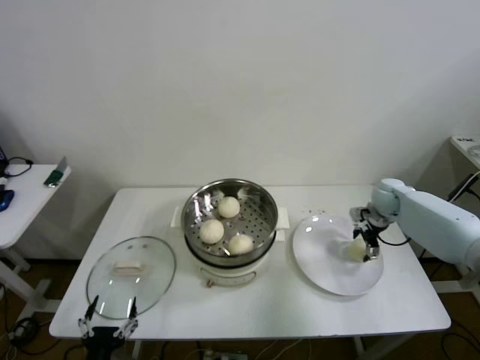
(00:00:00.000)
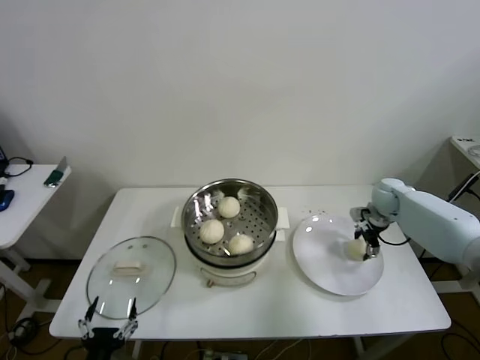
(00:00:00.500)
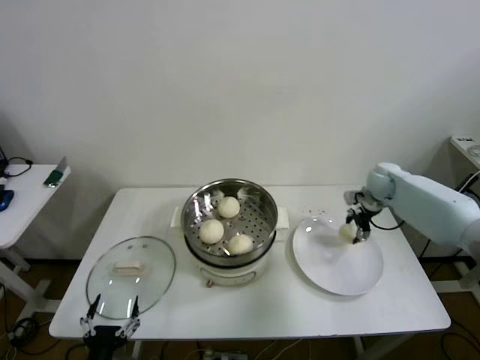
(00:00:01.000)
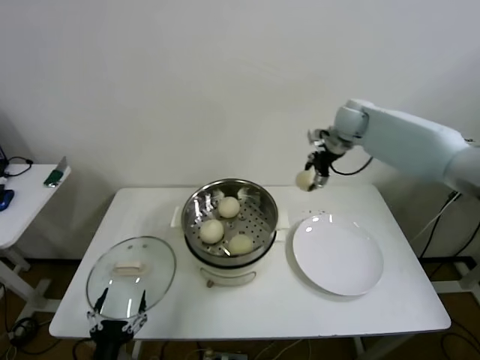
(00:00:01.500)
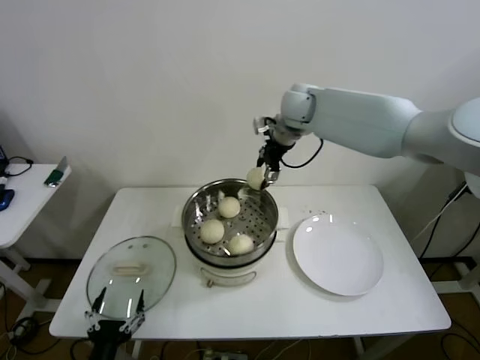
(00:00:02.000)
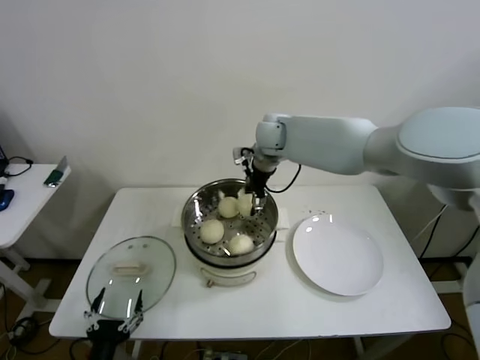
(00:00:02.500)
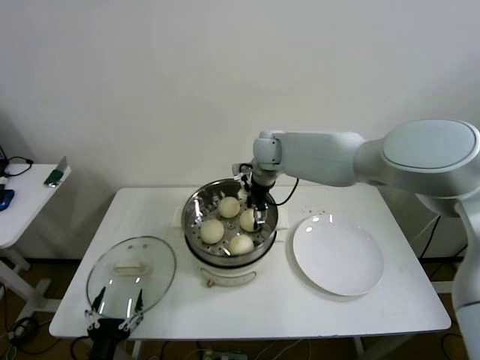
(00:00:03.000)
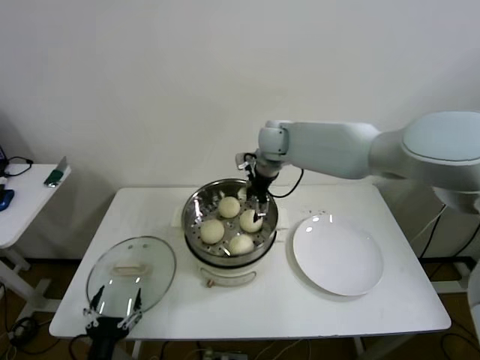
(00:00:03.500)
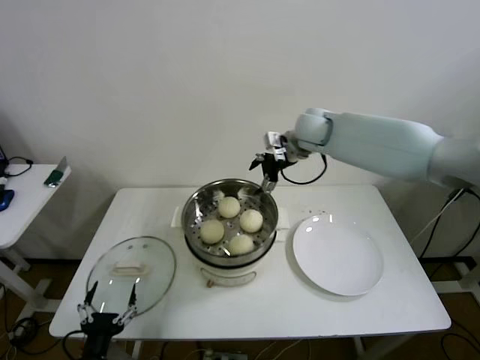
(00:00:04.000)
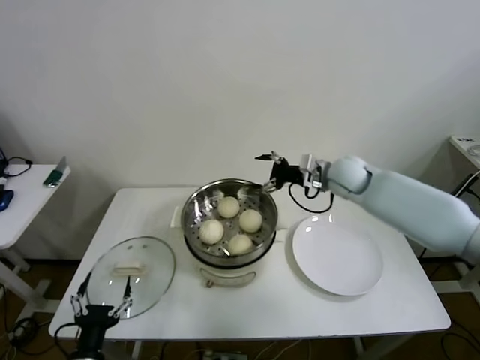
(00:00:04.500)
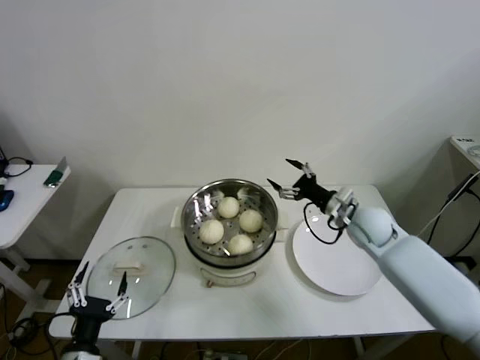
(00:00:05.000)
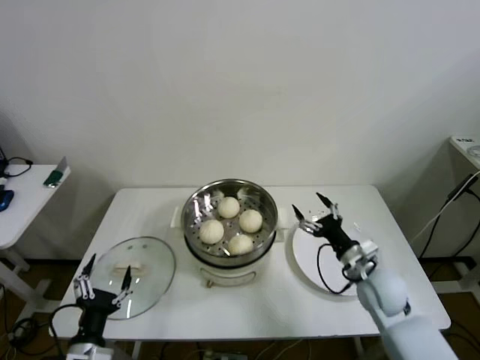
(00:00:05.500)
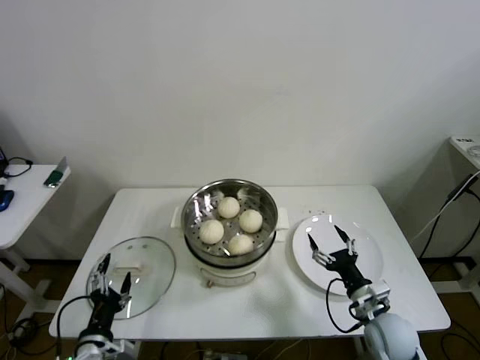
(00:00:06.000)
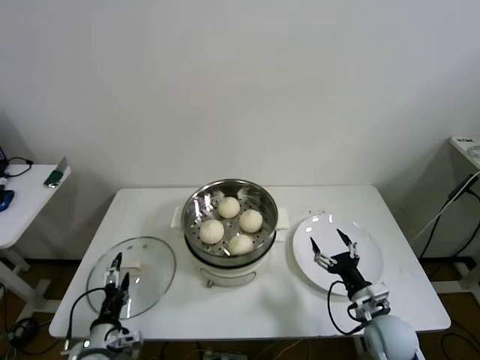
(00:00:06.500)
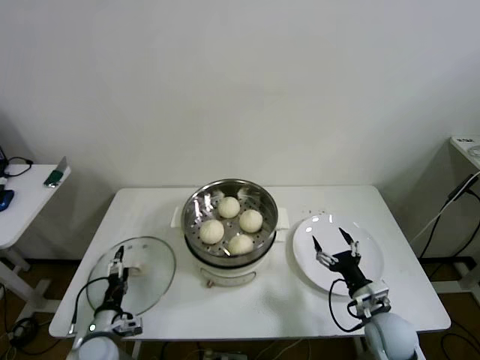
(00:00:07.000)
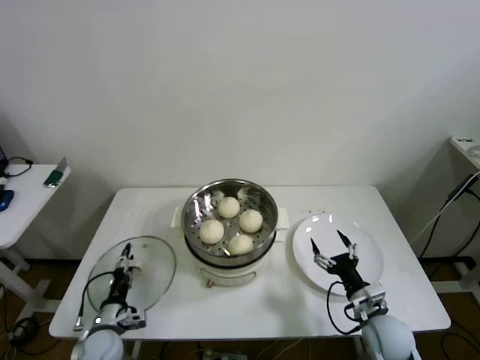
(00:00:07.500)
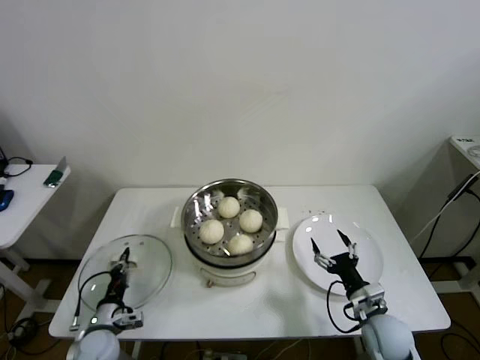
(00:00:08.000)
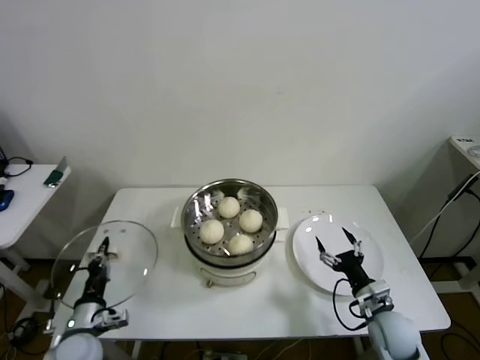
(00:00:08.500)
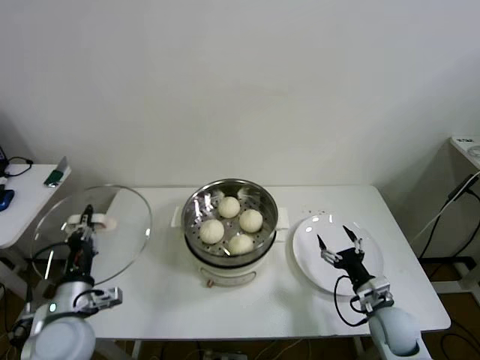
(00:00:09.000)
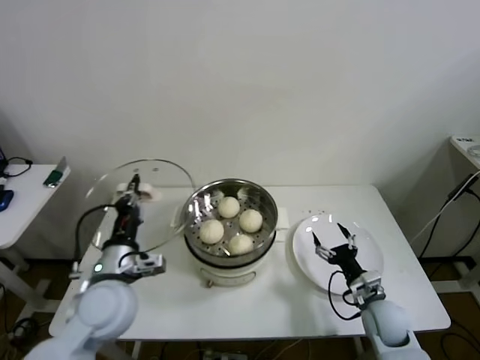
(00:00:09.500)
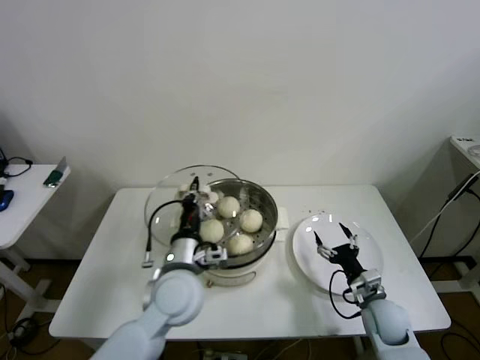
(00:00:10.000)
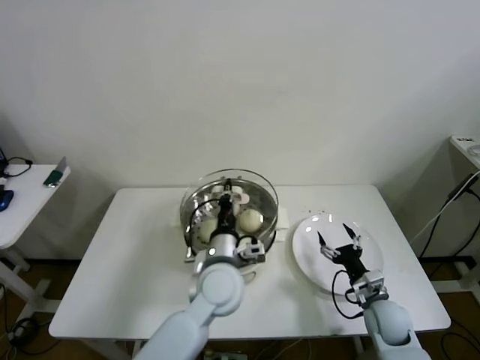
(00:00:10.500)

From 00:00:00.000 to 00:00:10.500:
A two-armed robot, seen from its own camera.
Step, from 00:00:01.000 to 00:00:03.500: Place the baozi on the steamer with right gripper.
Step, from 00:00:04.000 to 00:00:07.500: Grasp the pot lid with left gripper.
From 00:00:00.000 to 00:00:02.000: The right gripper moves to the left and upward, roughly 35 cm, and closes up.
From 00:00:02.000 to 00:00:04.000: The right gripper opens up.
From 00:00:04.000 to 00:00:06.500: The right gripper goes about 50 cm backward, downward and to the right, while the left gripper moves forward, approximately 10 cm.
From 00:00:06.500 to 00:00:08.500: The left gripper shifts by some 5 cm, and closes its fingers.
From 00:00:08.500 to 00:00:10.500: The left gripper travels to the right and upward by approximately 35 cm.

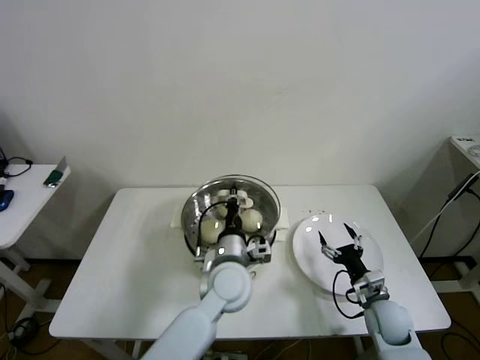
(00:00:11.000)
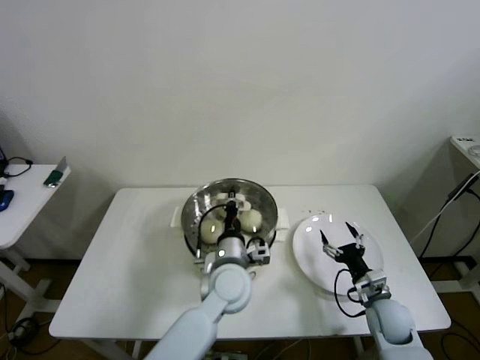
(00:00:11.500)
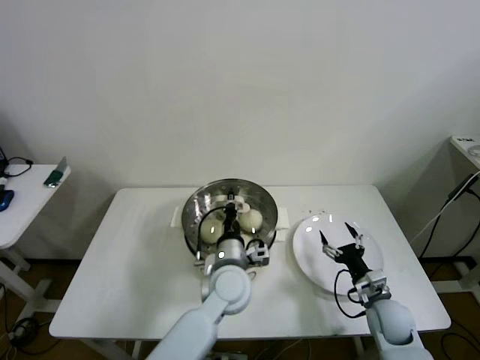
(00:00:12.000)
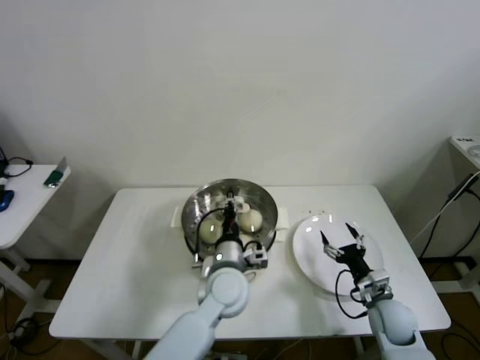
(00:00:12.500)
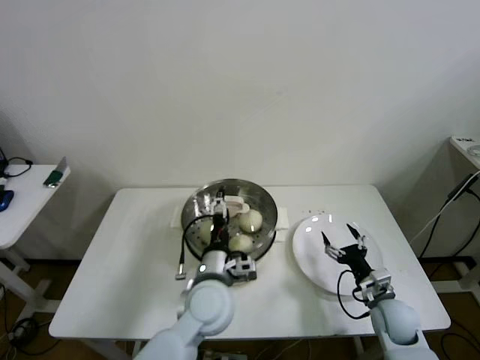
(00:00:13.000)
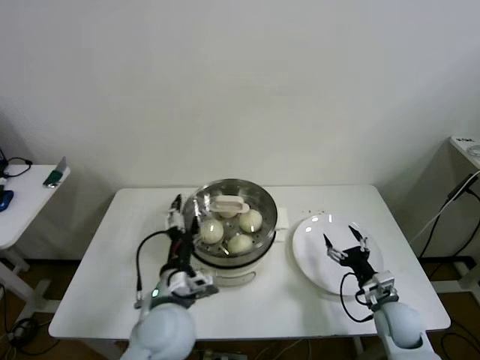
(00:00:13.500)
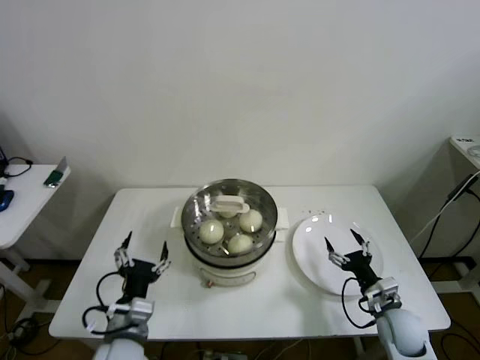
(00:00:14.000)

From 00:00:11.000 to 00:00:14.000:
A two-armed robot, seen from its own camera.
Step, from 00:00:11.000 to 00:00:13.000: Place the pot lid on the steamer with left gripper.
From 00:00:11.000 to 00:00:12.500: The grippers make only small movements.
From 00:00:12.500 to 00:00:14.000: The left gripper goes roughly 20 cm to the left and backward, and opens.
